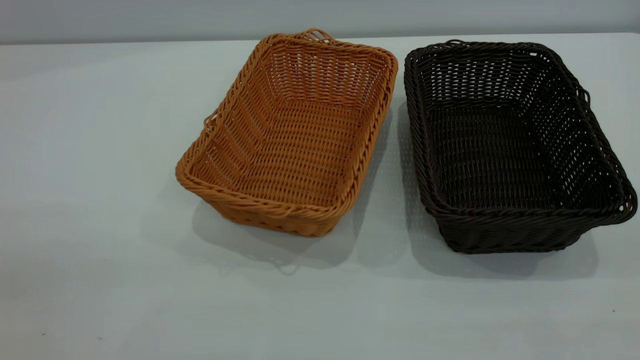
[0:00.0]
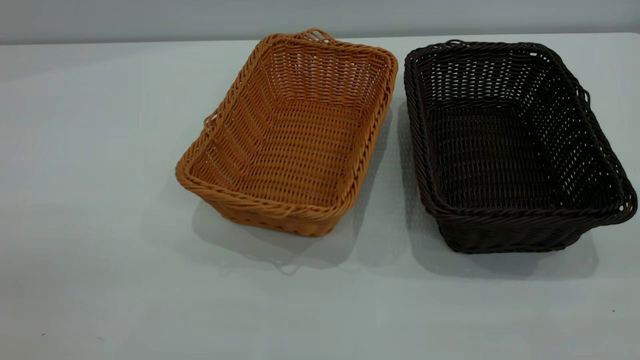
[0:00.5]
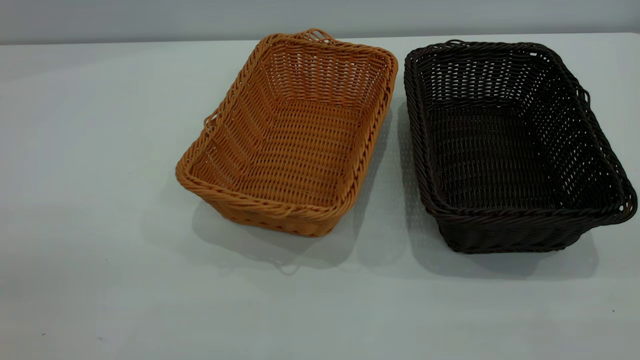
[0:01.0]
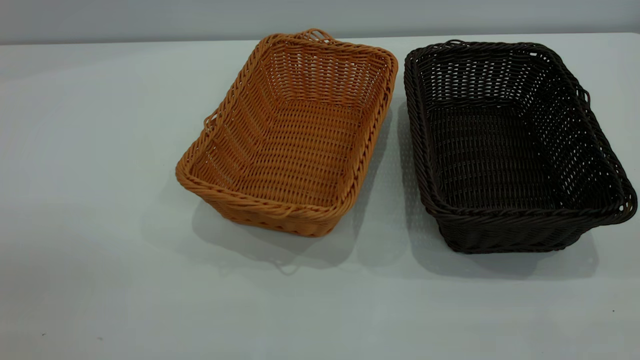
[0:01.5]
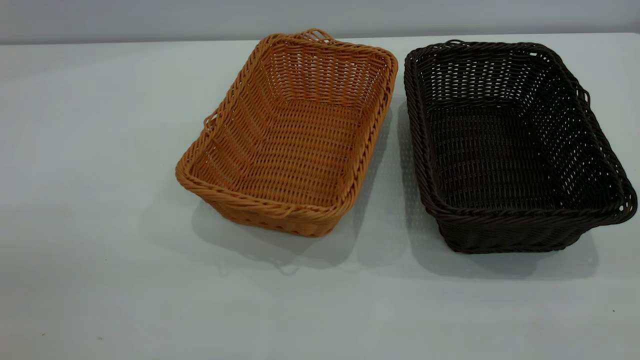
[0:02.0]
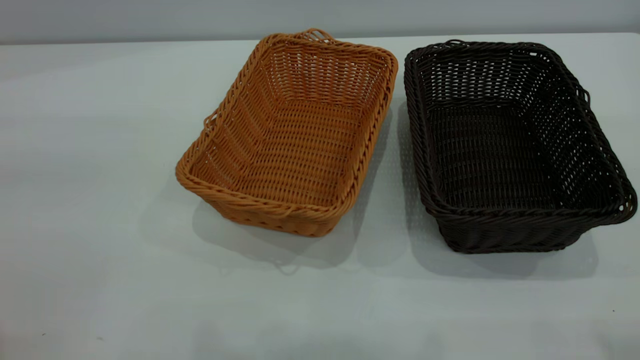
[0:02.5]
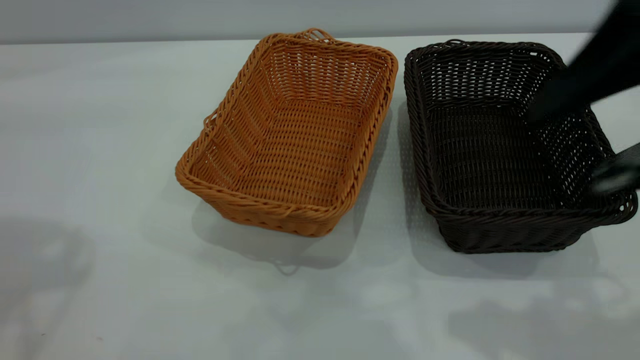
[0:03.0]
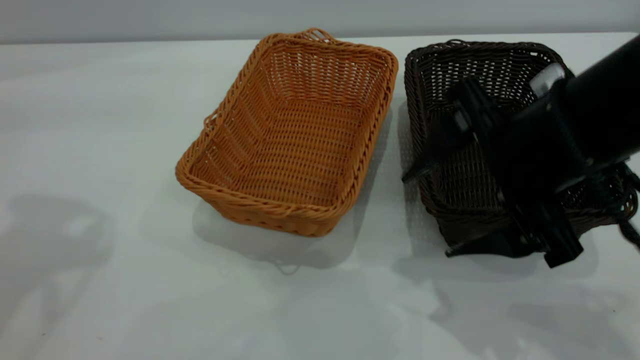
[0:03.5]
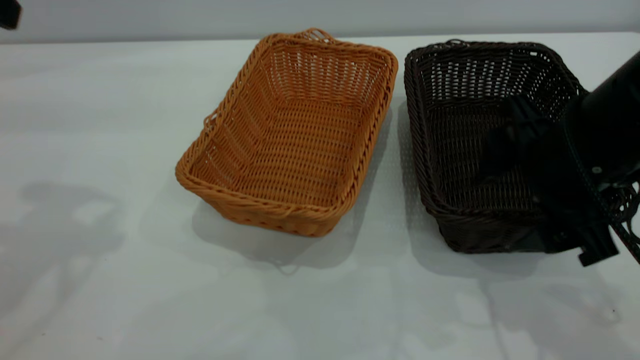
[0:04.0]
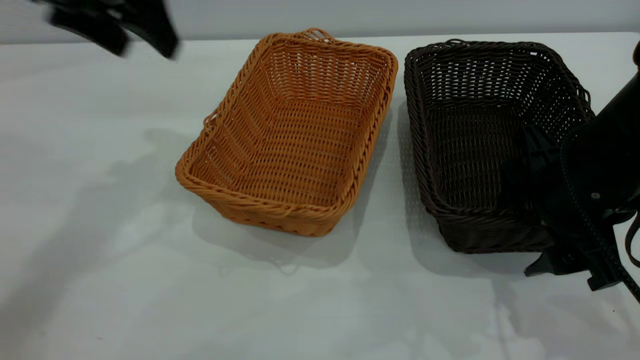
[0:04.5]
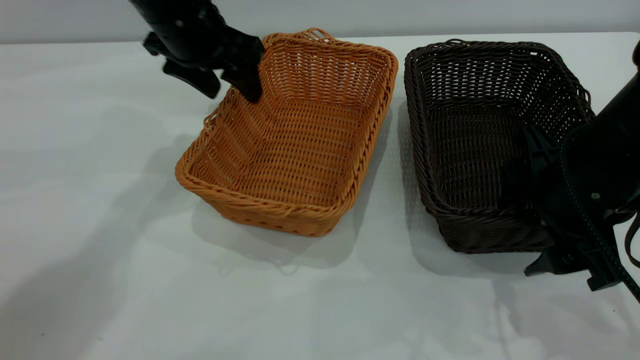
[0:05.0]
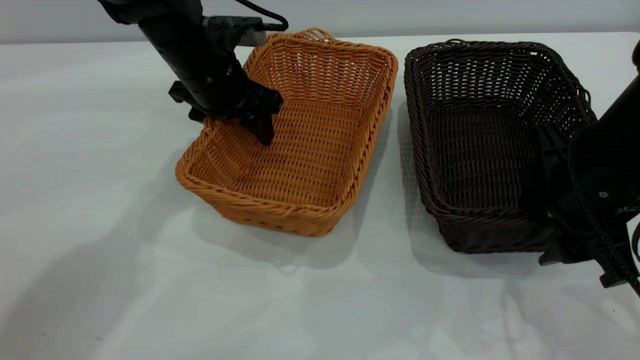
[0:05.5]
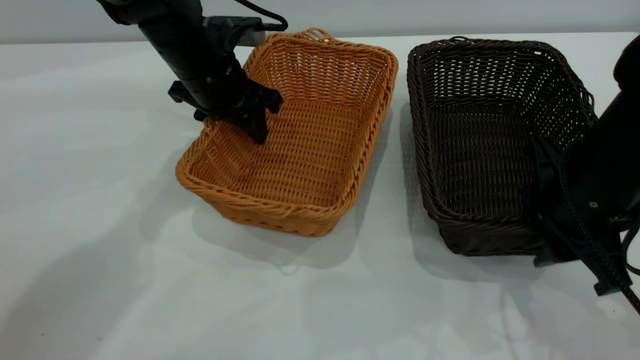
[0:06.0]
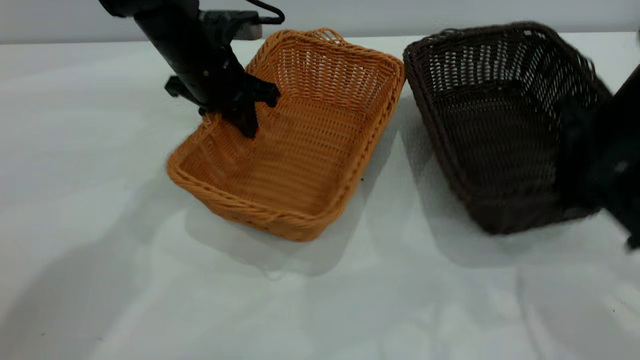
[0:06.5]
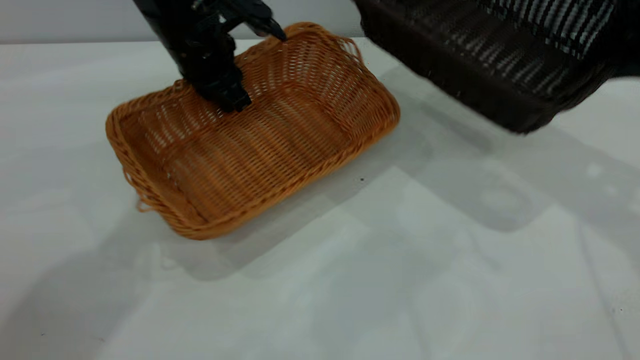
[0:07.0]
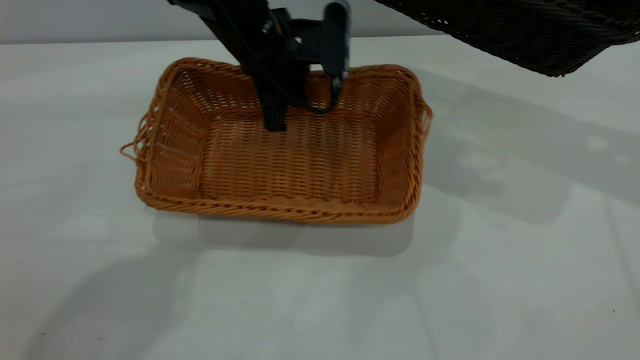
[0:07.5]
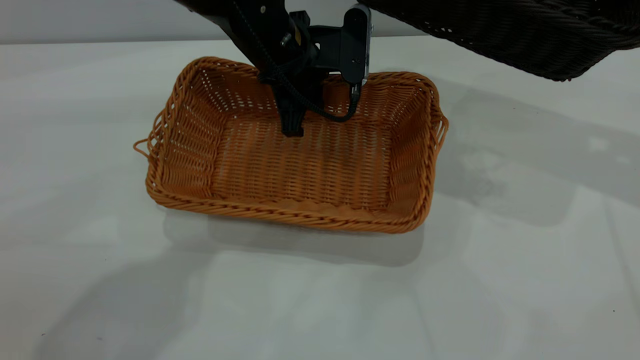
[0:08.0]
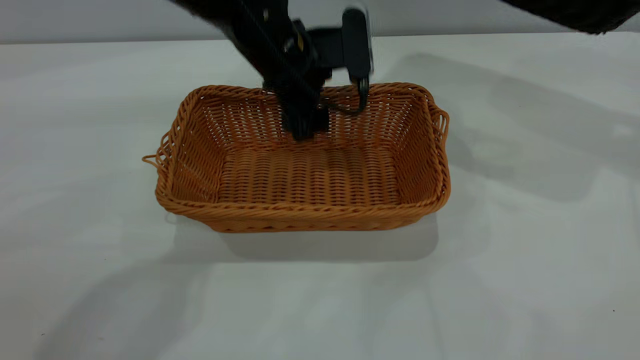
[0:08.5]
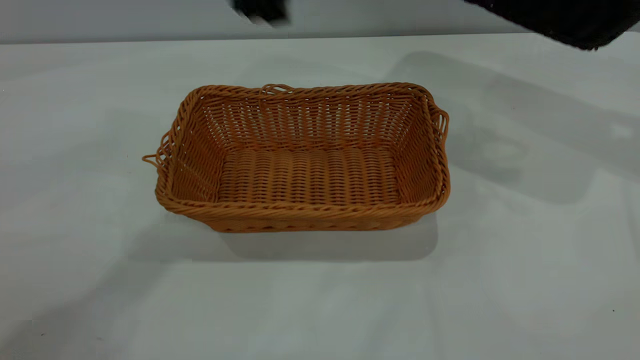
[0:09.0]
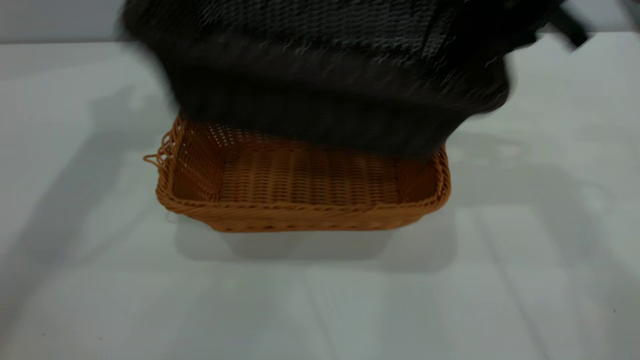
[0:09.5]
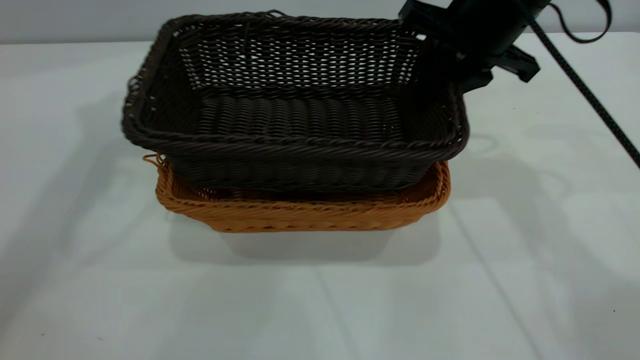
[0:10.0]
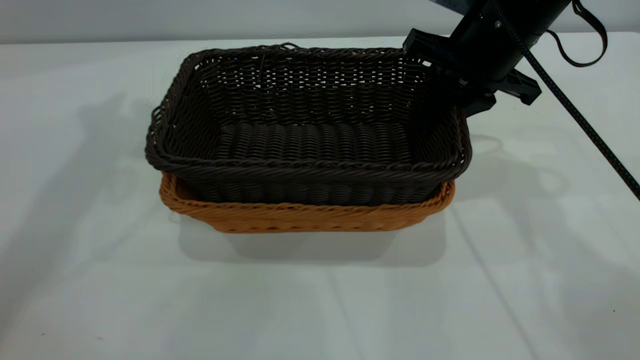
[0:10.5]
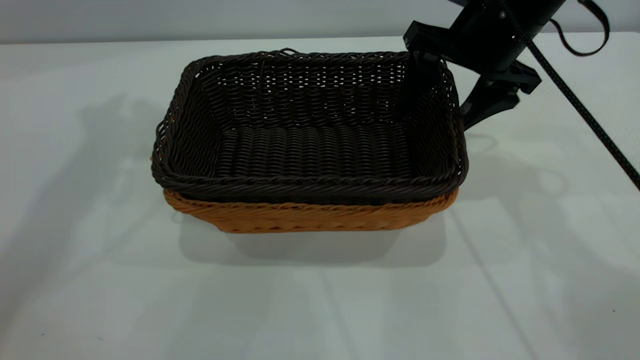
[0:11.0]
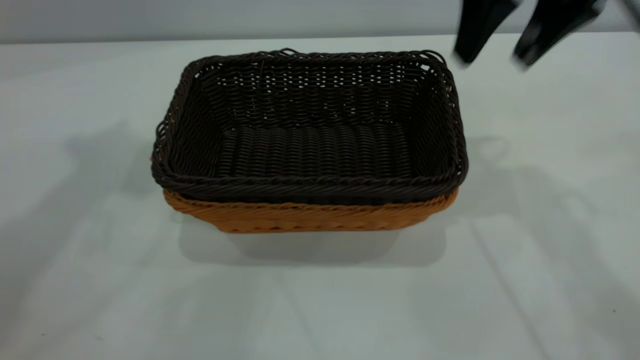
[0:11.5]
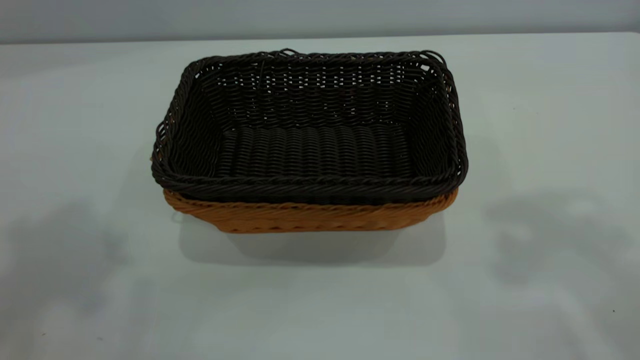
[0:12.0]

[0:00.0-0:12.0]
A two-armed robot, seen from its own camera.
Task of the whole recording: the left gripper grasp the brown basket and place it in the center of the table, the right gripper grasp the black basket and place it inside the brown one.
Step, 0:00.0 to 0:06.5: Pick up the light basket with the right gripper.
Step, 0:07.0 to 0:08.5: Place the light-colored basket in the center.
Step, 0:09.0 to 0:11.0: Place the dark basket on top of the light basket.
0:00.0 to 0:02.0: Neither gripper changes place.
0:02.0 to 0:04.0: The right gripper travels forward, downward and to the left by about 35 cm.
0:04.0 to 0:06.0: The left gripper is displaced downward, to the right and forward by some 30 cm, and closes. The right gripper closes up.
0:06.0 to 0:08.0: The right gripper is displaced upward, to the right and forward by approximately 25 cm, while the left gripper shifts some 10 cm to the right.
0:08.0 to 0:10.0: The right gripper heads to the left and downward, covering some 20 cm. The left gripper moves upward and to the left, approximately 35 cm, and opens.
0:10.0 to 0:12.0: The left gripper moves backward and upward, approximately 20 cm; the right gripper is displaced upward and backward by some 30 cm, and opens.

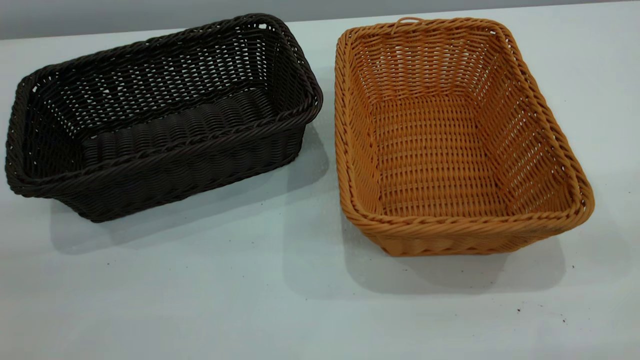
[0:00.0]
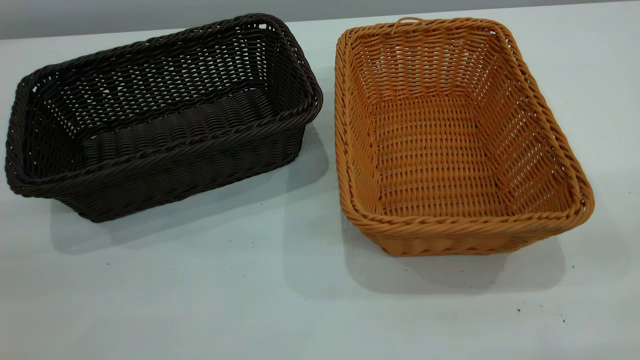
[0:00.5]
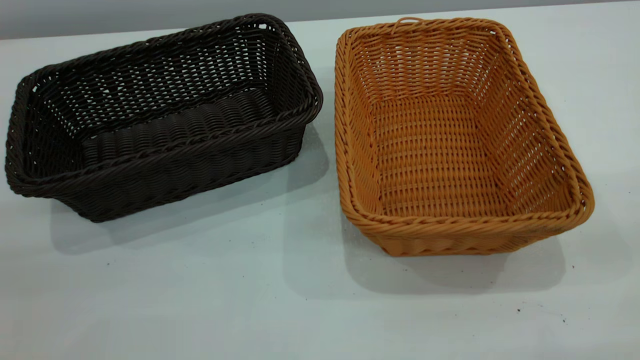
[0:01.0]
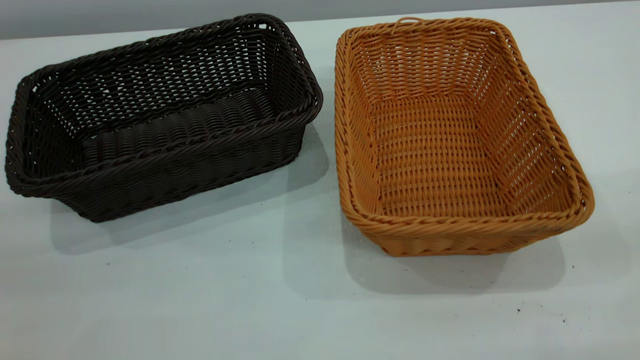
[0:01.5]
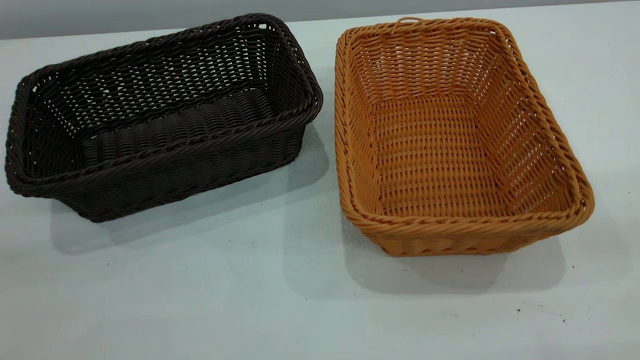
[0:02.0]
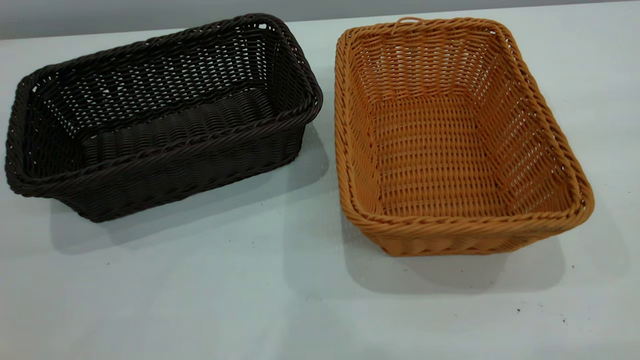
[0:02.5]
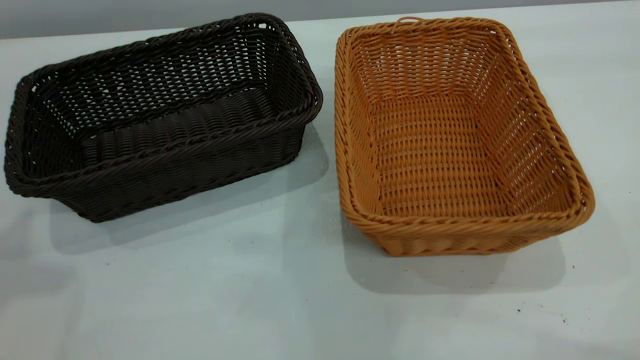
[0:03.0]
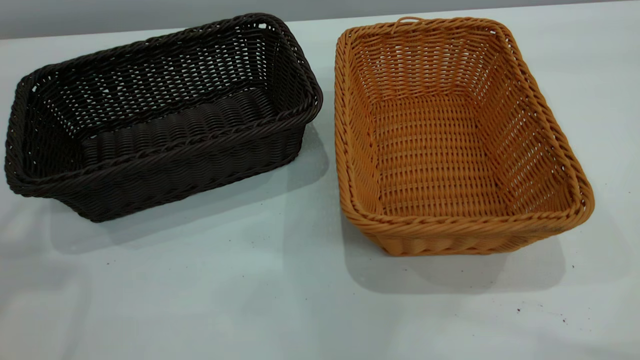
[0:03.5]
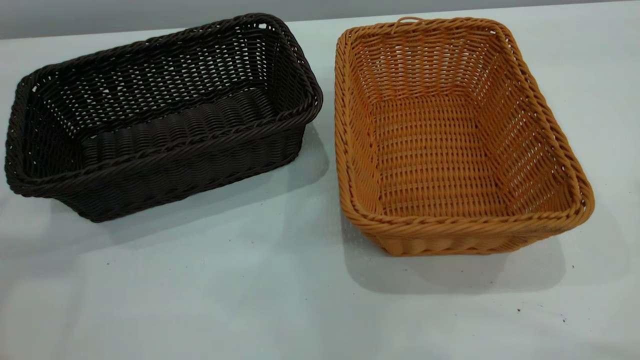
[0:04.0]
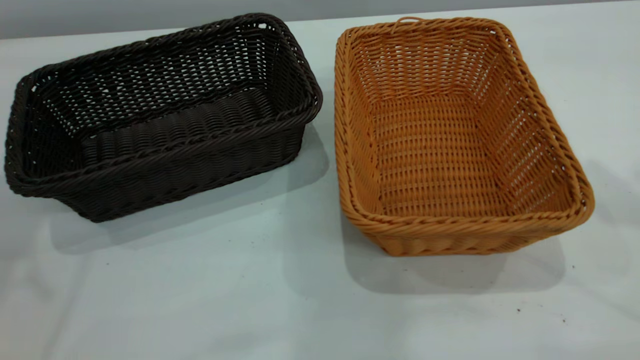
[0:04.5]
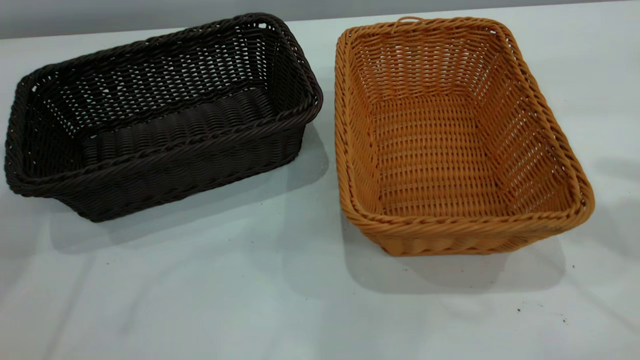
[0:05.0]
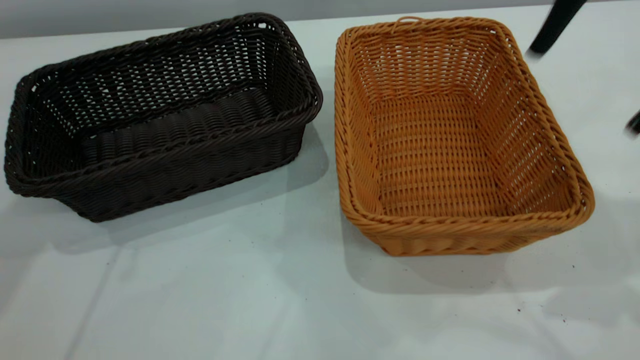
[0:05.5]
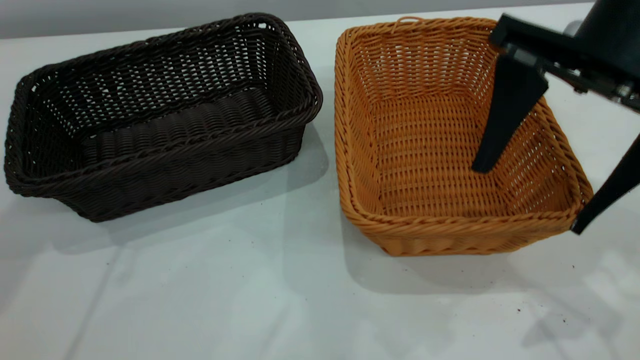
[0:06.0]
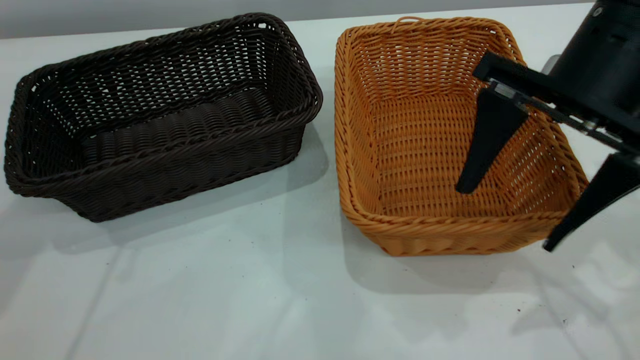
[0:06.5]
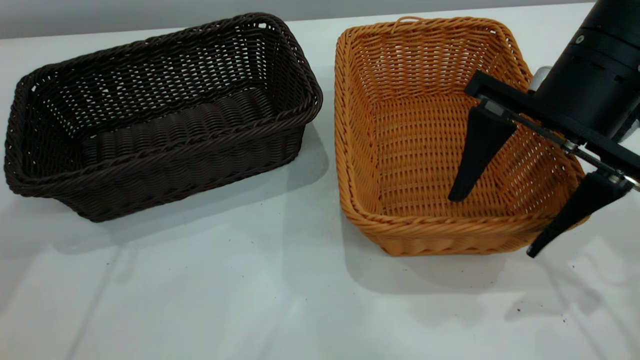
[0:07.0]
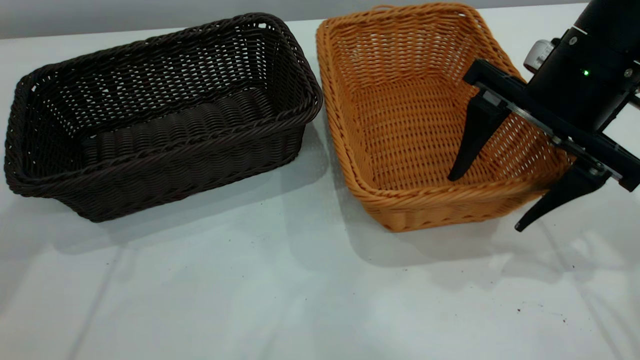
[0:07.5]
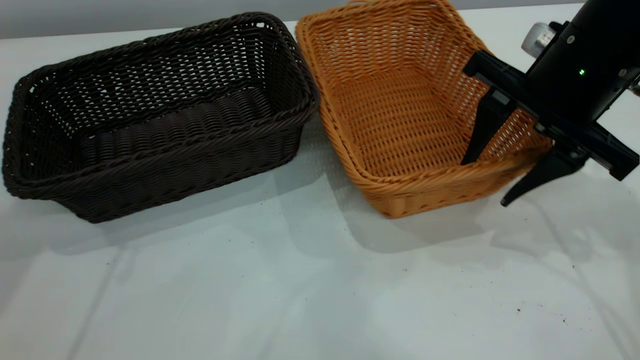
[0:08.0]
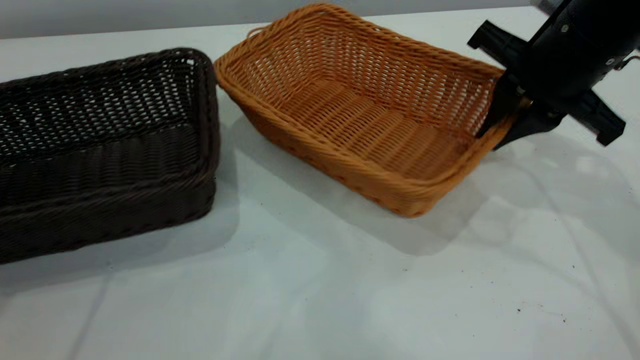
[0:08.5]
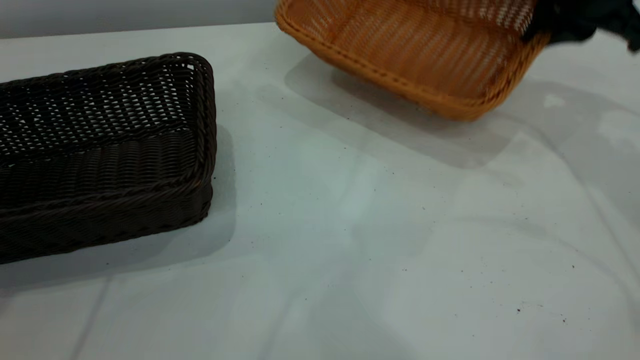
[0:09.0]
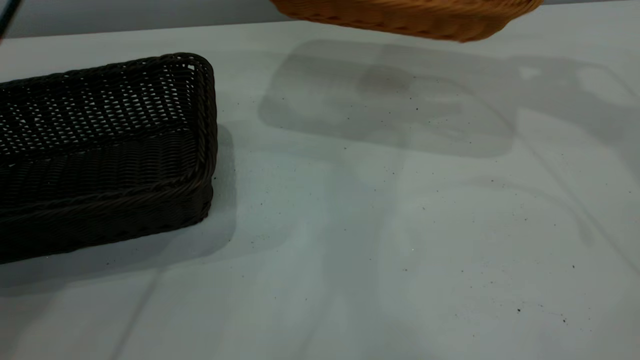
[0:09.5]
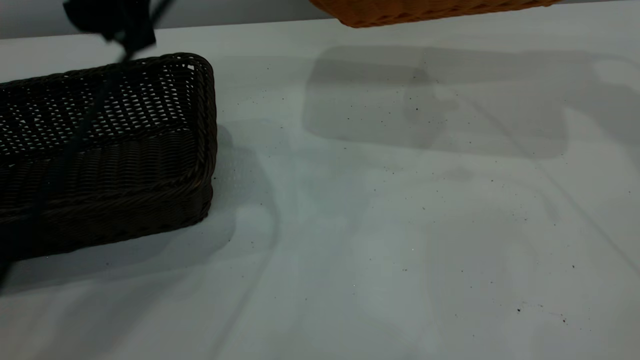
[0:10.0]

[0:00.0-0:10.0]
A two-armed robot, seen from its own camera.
Task of the whole recording: the left gripper grasp the black basket and place it in the center of the table, the right gripper grasp the brown basket and place it inside the black one.
Step, 0:00.0 to 0:08.5: Pick up the light basket with the right gripper.
0:00.0 to 0:02.0: Neither gripper changes place.
0:02.0 to 0:04.0: The two grippers go about 20 cm forward and upward. The right gripper opens. The left gripper opens.
0:04.0 to 0:06.0: The left gripper heads forward and downward, covering about 20 cm. The right gripper moves downward and to the left, some 25 cm.
0:06.0 to 0:08.0: The right gripper is displaced downward by approximately 5 cm, and closes.
0:08.0 to 0:10.0: The right gripper moves upward, forward and to the right, approximately 25 cm, and closes, while the left gripper shifts about 15 cm to the right and backward.
